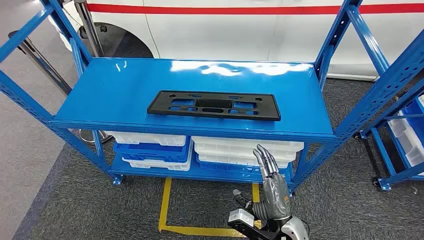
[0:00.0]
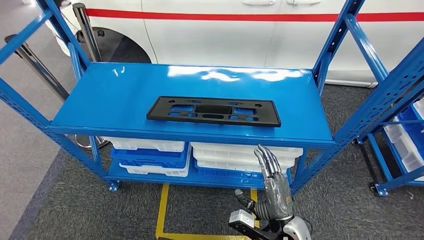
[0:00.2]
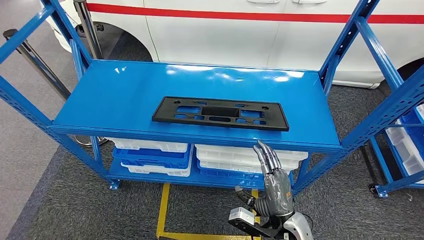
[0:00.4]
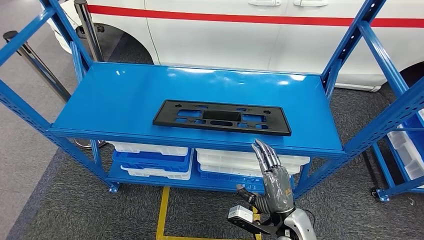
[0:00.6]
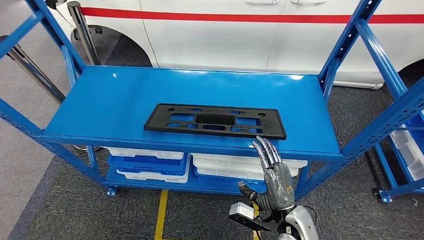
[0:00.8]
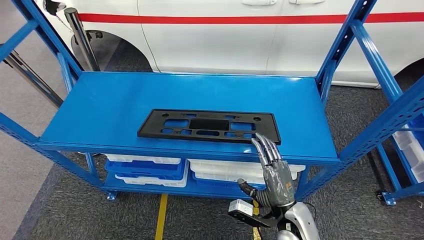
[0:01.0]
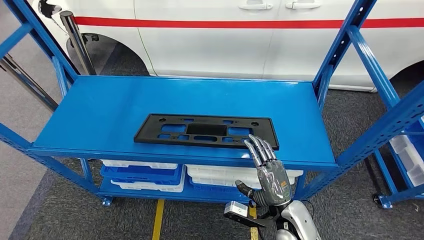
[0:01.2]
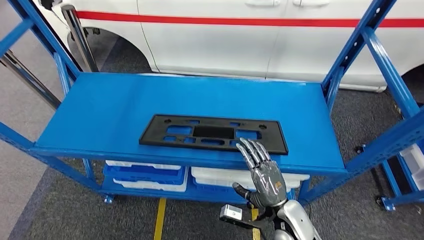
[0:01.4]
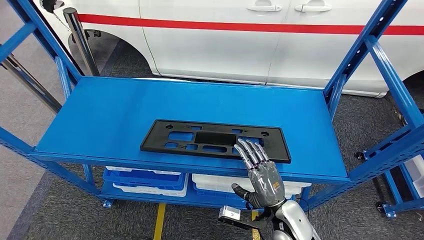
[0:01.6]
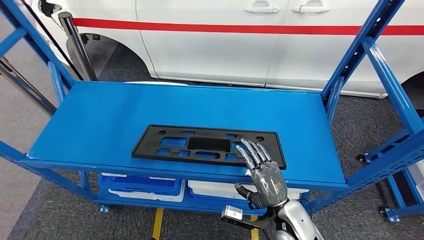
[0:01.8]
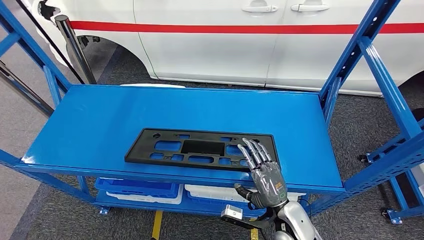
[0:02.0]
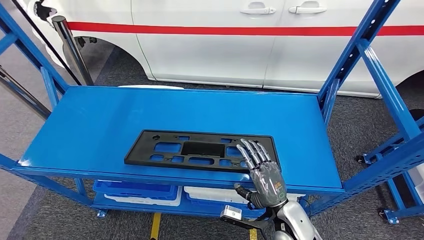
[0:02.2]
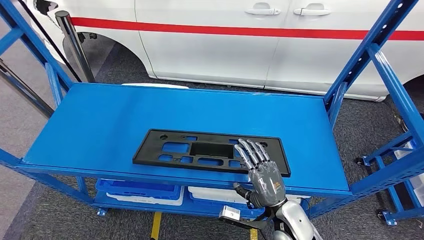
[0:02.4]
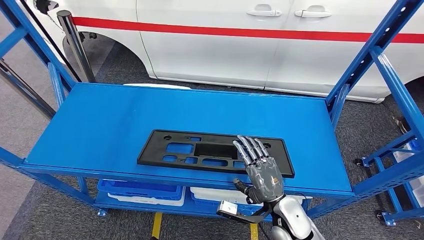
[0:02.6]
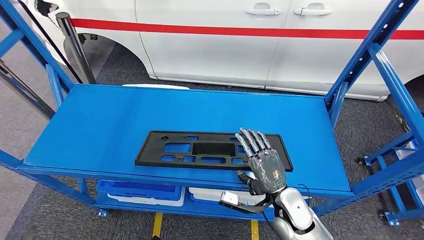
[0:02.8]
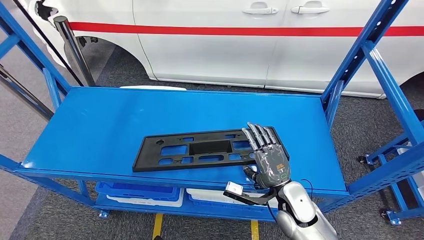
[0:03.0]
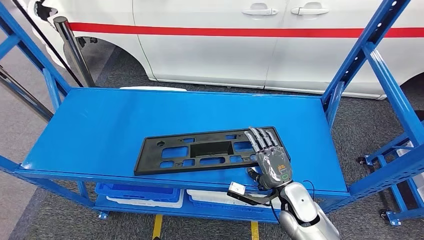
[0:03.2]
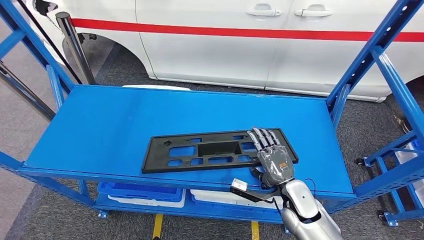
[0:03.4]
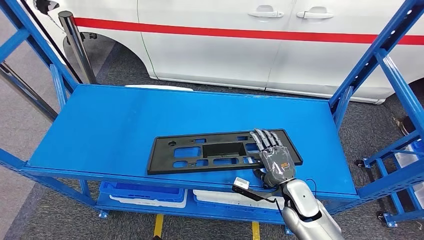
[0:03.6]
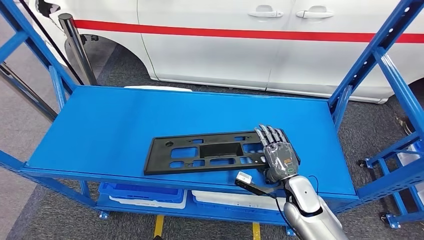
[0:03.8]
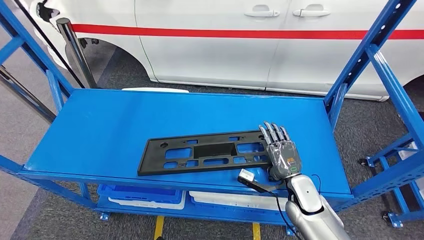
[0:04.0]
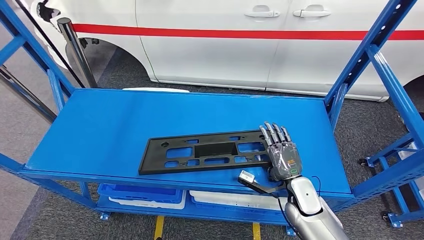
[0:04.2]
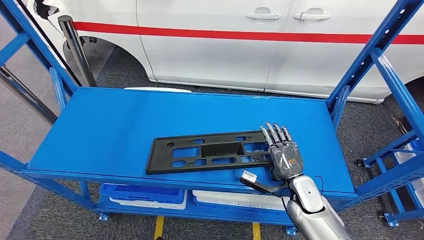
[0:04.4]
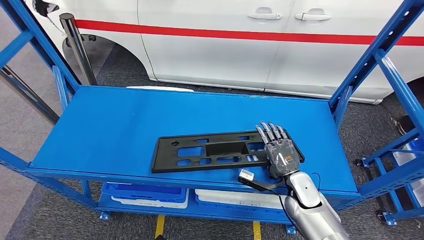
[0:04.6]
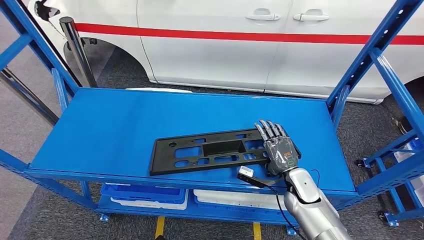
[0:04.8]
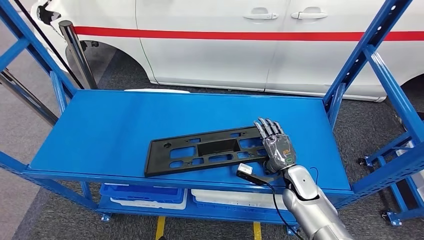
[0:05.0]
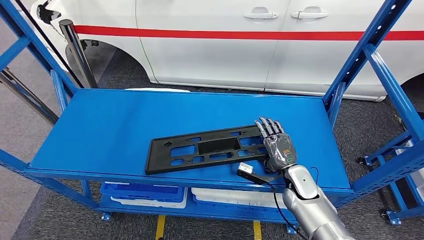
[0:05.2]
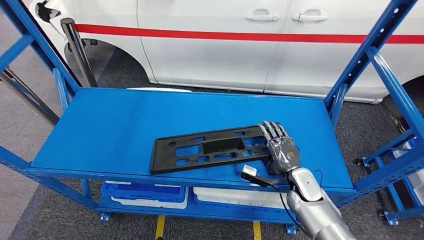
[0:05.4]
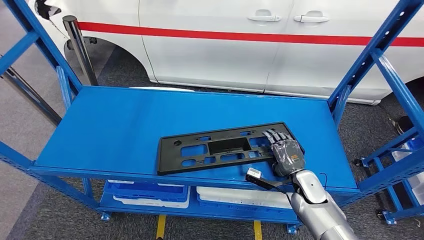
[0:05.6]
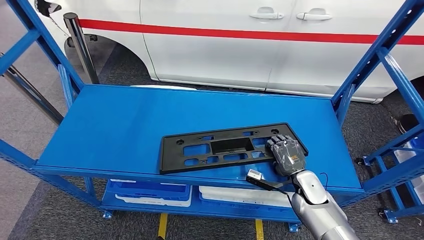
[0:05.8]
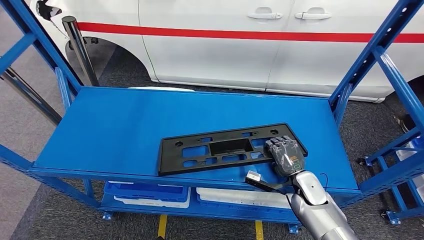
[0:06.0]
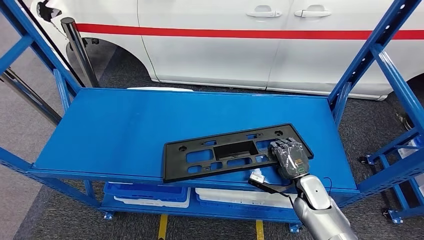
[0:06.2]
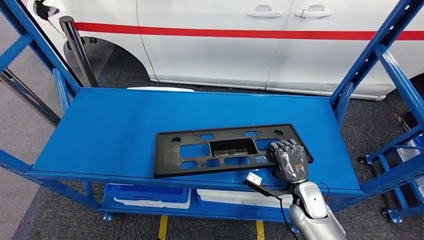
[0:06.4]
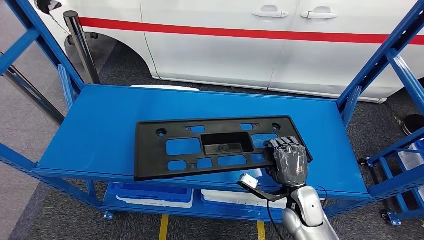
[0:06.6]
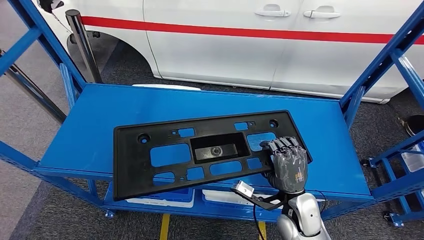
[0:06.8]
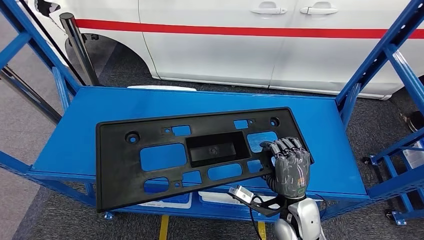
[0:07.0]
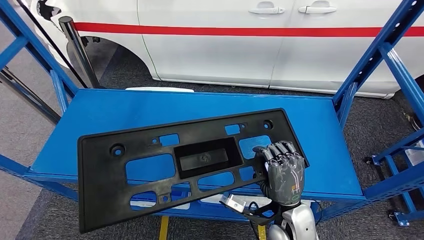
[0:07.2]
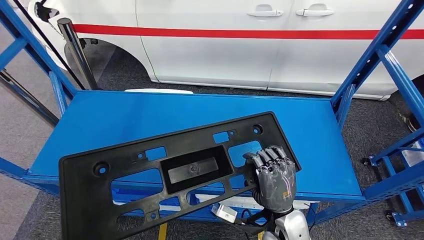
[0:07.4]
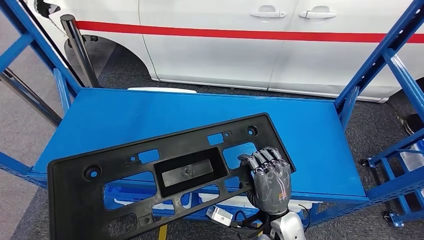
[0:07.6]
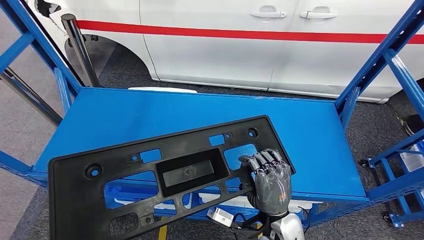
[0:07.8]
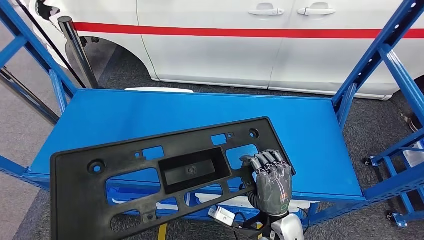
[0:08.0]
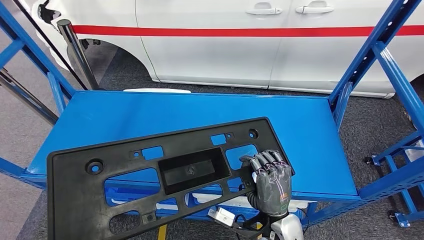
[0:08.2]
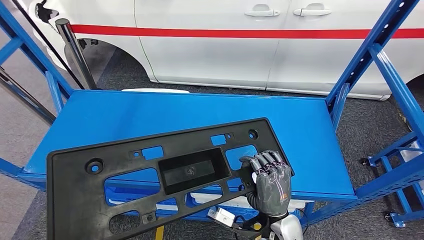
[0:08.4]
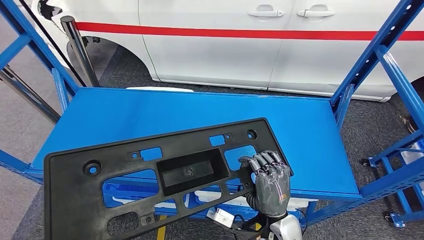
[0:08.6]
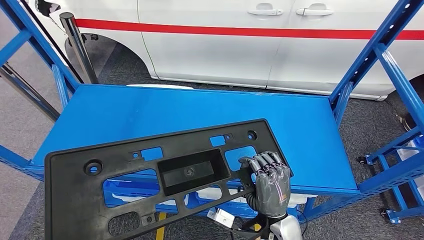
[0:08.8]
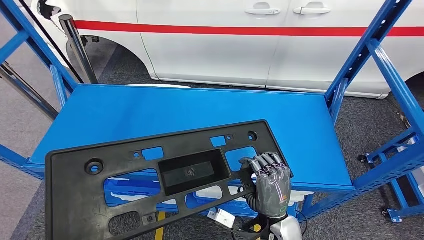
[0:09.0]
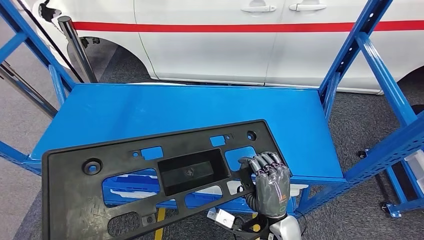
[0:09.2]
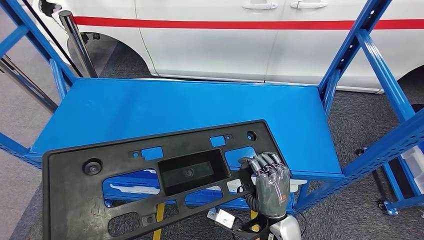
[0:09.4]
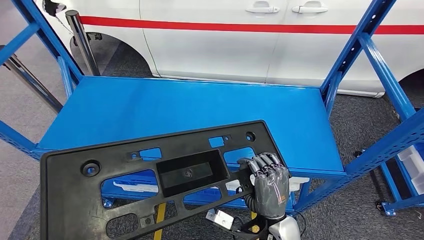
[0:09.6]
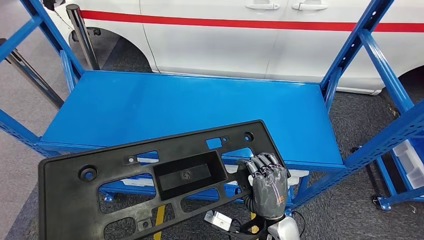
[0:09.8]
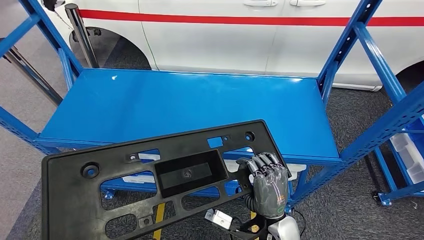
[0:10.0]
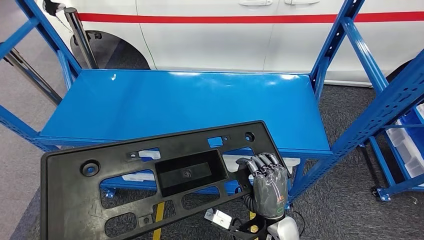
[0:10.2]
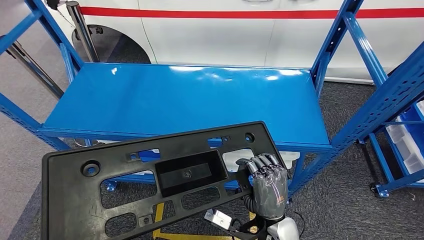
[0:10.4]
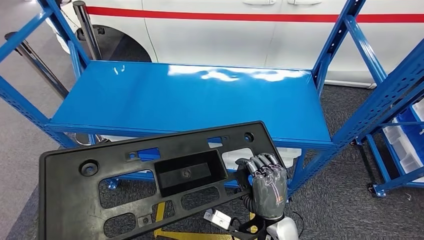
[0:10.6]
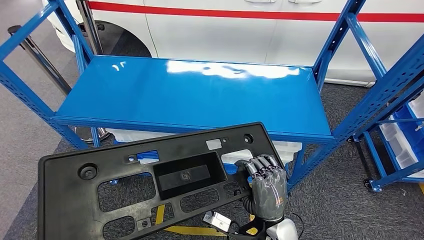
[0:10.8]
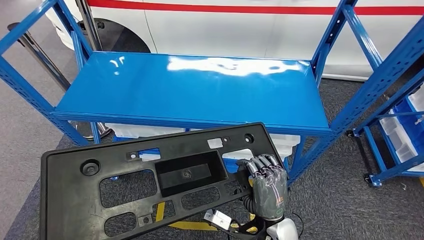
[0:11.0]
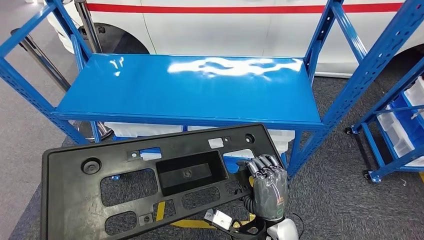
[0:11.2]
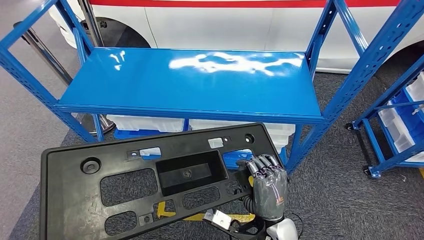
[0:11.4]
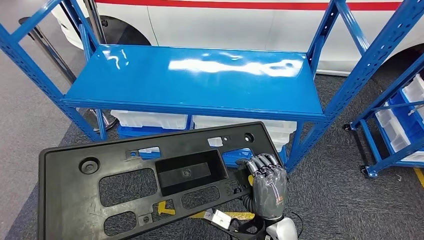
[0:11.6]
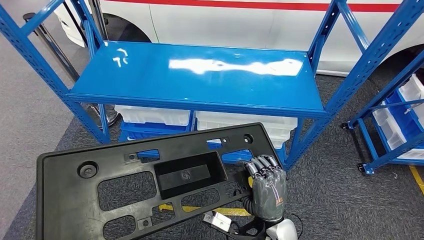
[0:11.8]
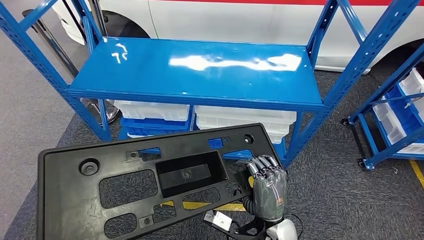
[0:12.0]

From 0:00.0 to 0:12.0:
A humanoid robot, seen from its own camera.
Step, from 0:00.0 to 0:10.2: Pick up the large material from the shelf.

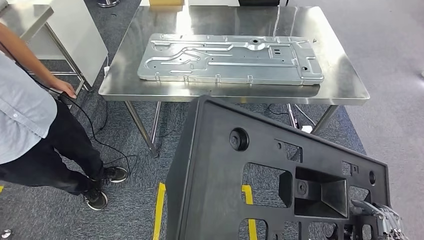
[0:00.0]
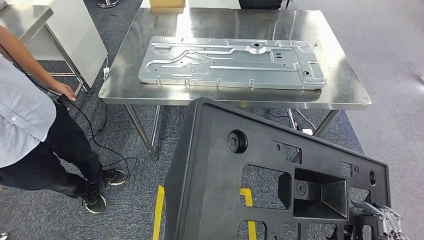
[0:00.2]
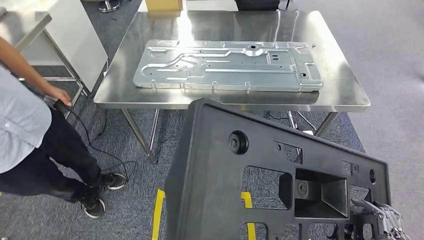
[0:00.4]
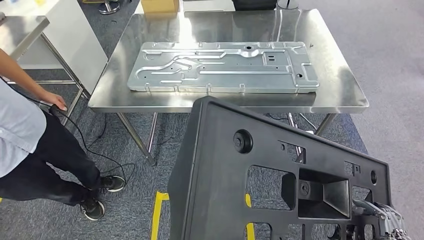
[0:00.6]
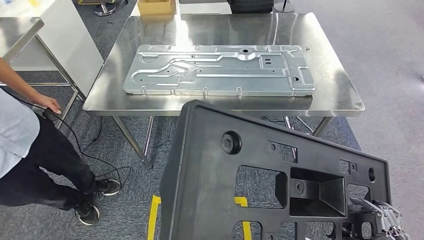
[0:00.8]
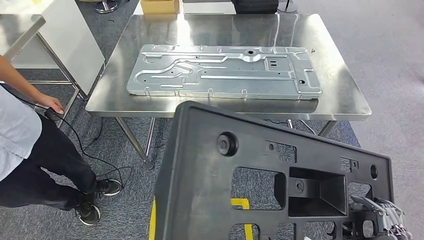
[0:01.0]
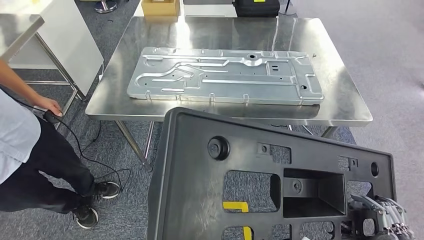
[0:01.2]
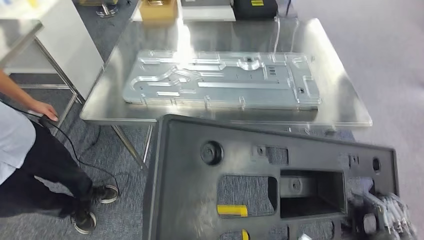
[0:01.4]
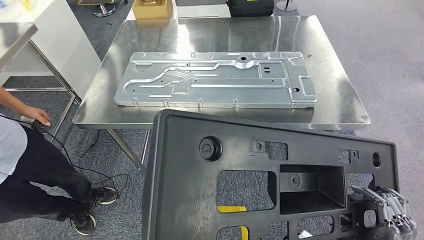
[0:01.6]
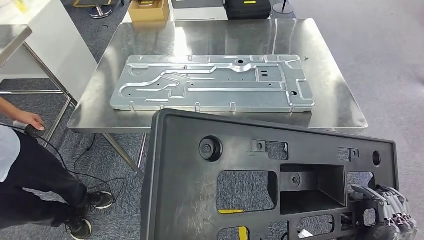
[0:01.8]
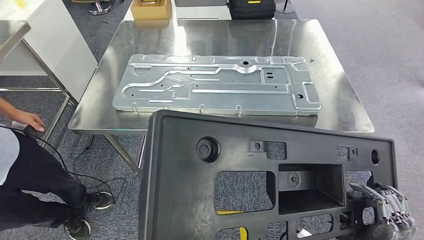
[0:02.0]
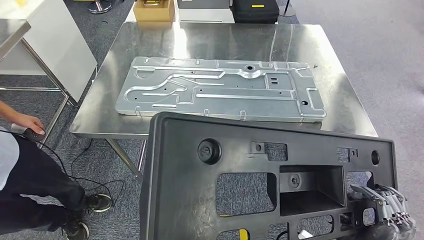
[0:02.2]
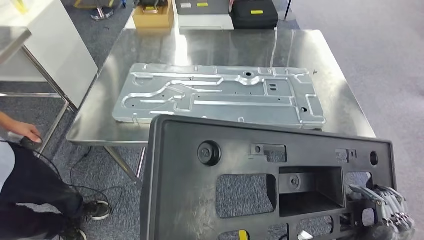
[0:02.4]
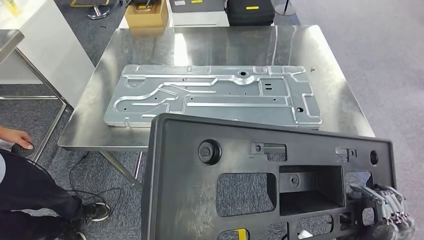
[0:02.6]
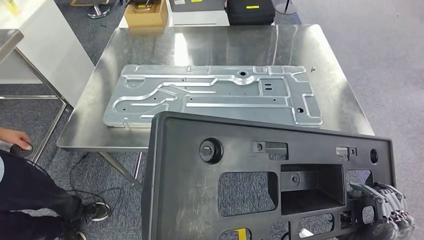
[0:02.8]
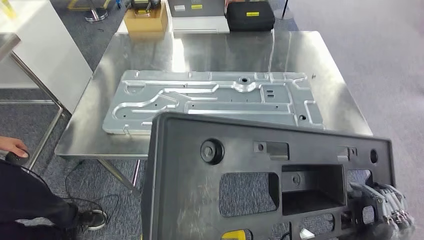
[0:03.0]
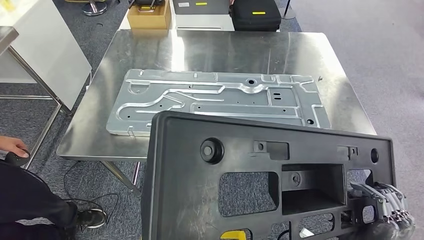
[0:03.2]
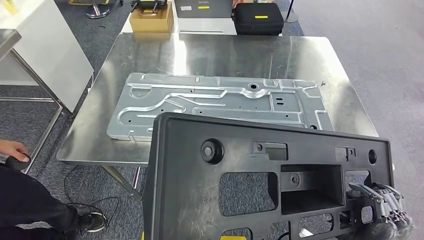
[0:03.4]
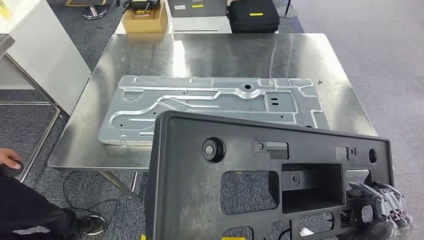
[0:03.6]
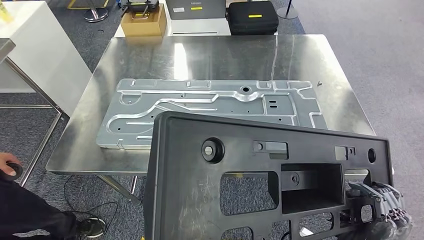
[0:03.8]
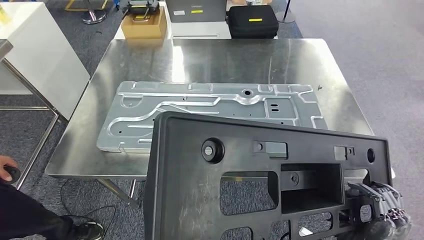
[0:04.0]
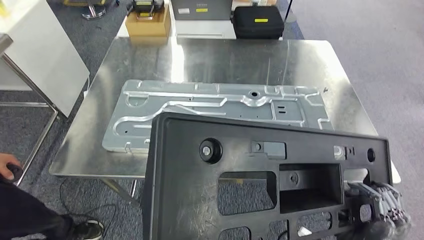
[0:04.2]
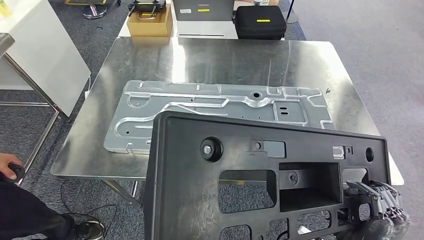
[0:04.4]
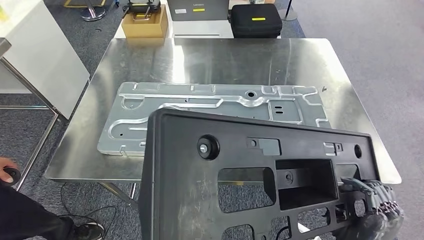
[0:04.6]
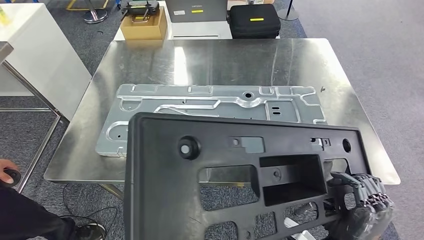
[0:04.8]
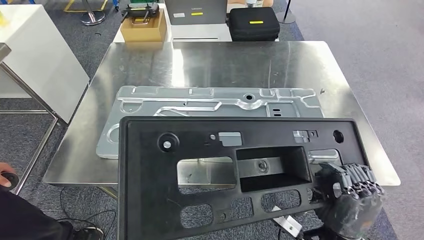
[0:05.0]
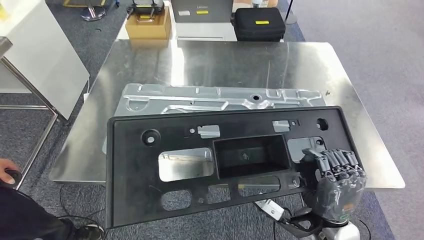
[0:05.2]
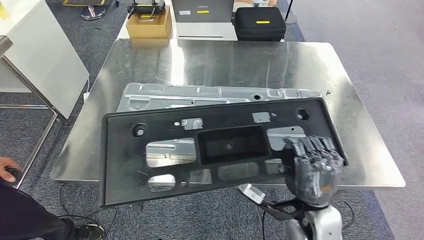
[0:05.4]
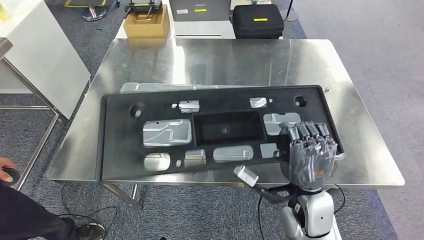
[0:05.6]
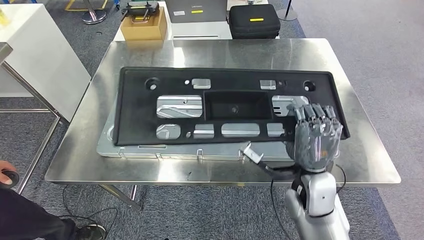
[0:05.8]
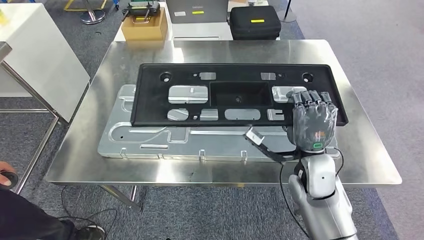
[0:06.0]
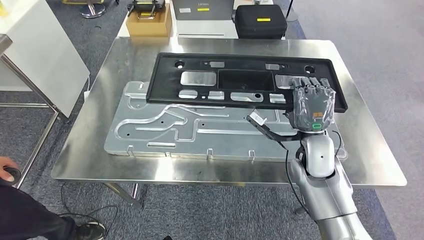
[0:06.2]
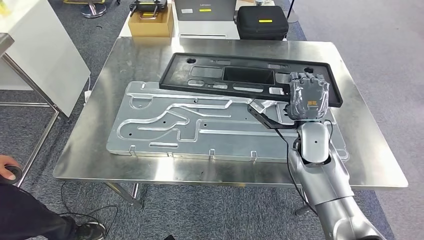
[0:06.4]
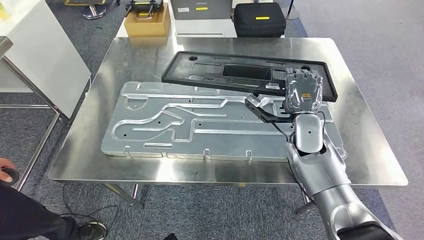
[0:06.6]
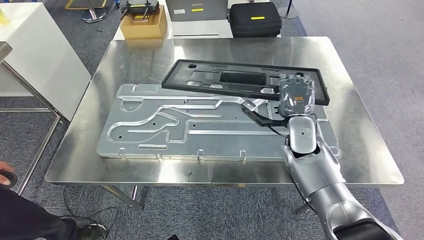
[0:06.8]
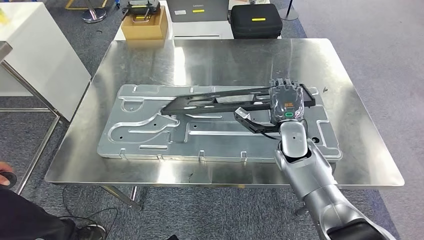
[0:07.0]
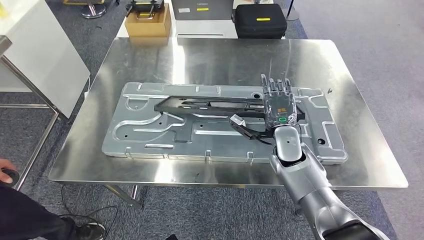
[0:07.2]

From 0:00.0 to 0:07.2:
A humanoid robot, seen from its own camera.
Step, from 0:00.0 to 0:02.0: Move the large material to the workbench.
